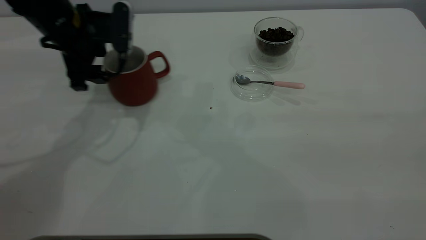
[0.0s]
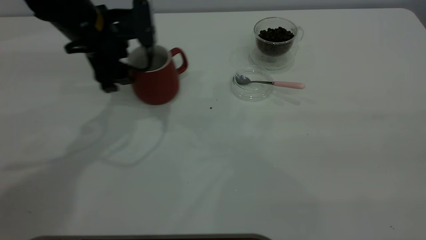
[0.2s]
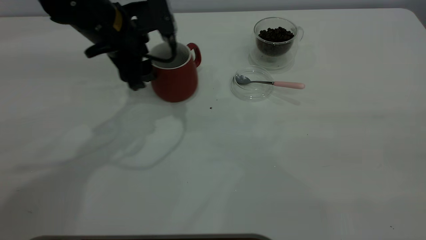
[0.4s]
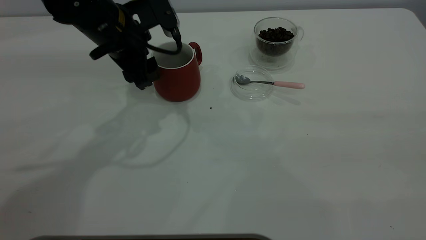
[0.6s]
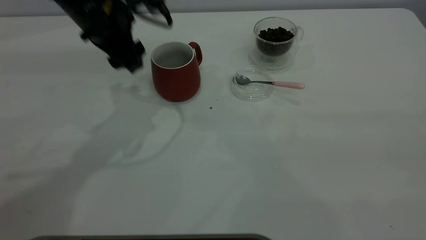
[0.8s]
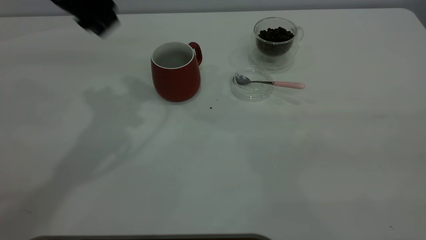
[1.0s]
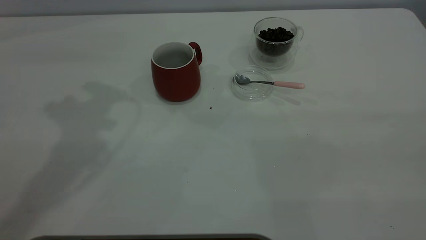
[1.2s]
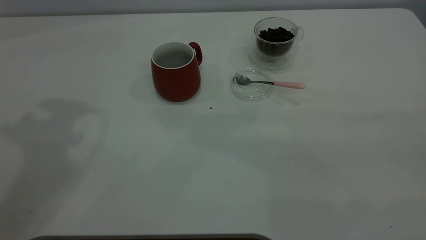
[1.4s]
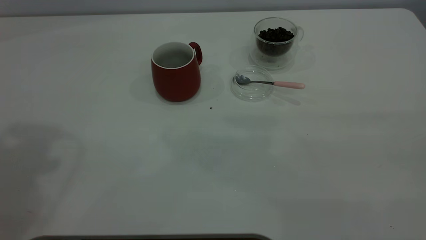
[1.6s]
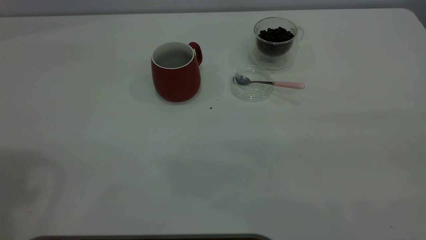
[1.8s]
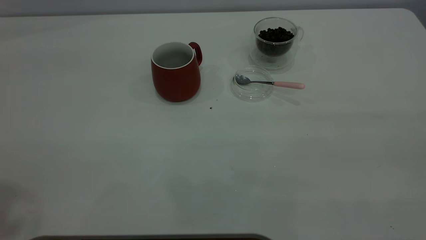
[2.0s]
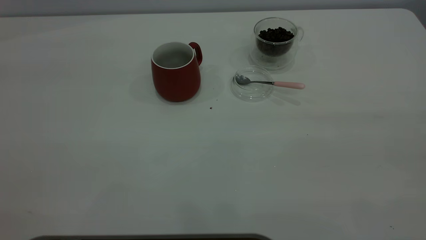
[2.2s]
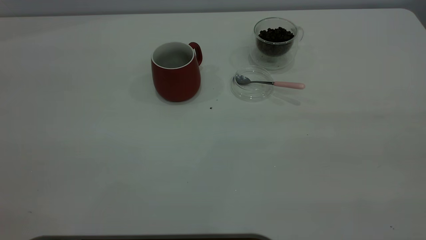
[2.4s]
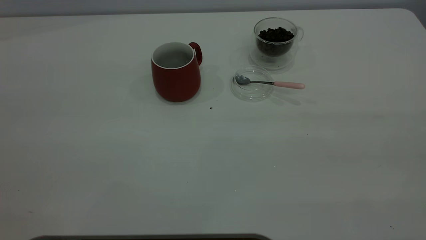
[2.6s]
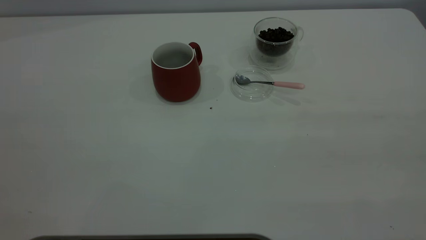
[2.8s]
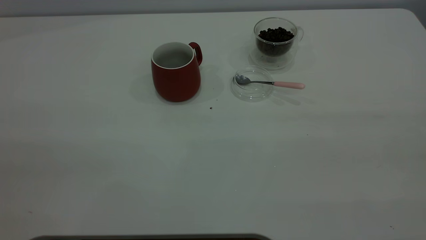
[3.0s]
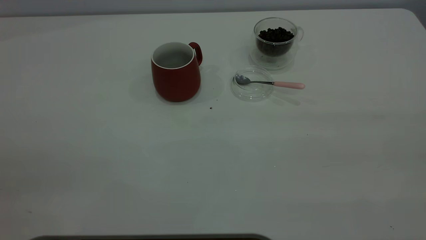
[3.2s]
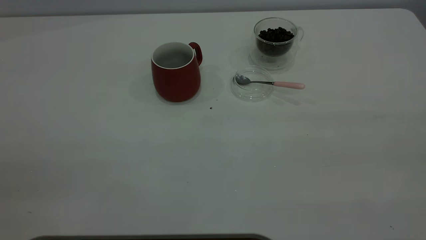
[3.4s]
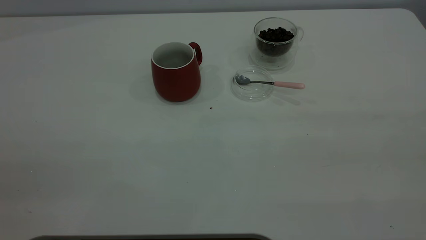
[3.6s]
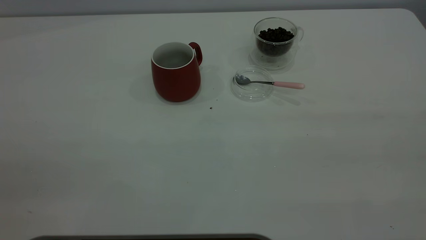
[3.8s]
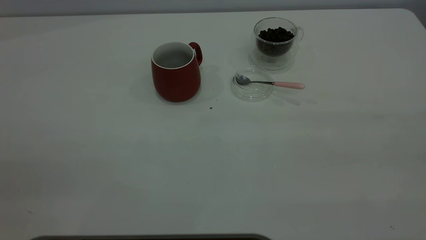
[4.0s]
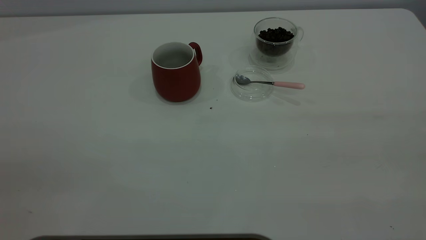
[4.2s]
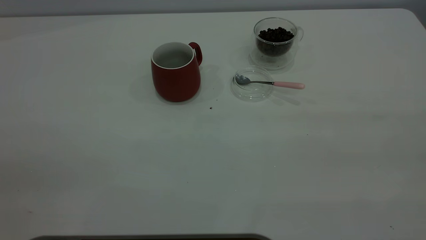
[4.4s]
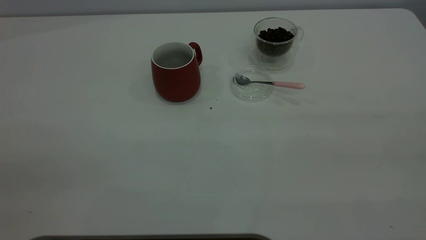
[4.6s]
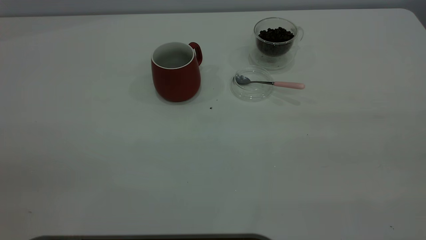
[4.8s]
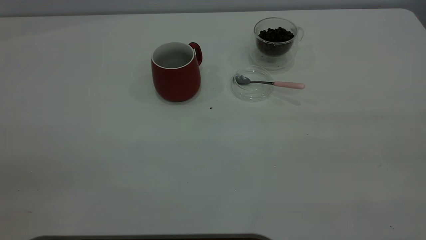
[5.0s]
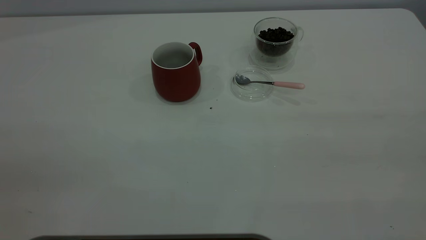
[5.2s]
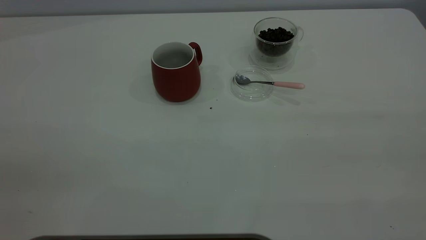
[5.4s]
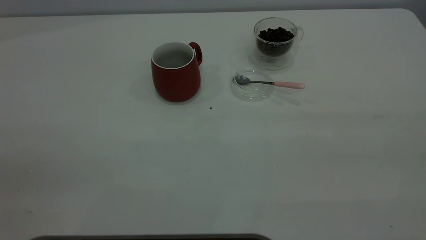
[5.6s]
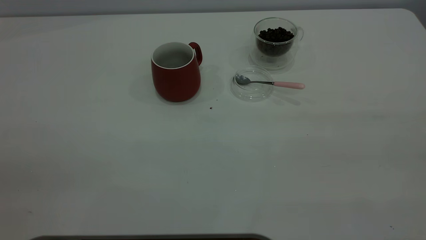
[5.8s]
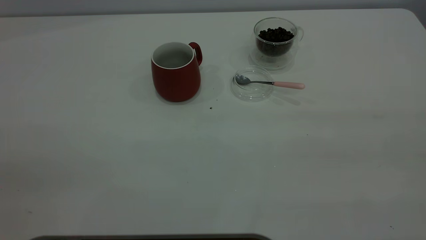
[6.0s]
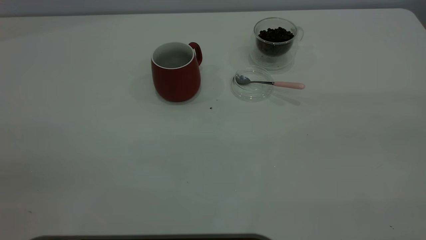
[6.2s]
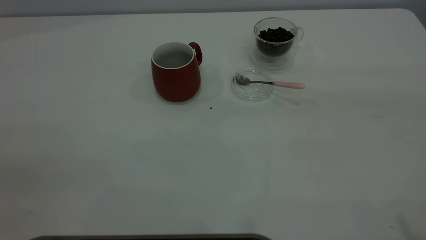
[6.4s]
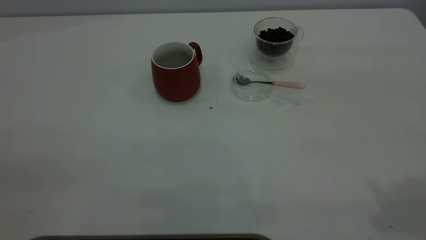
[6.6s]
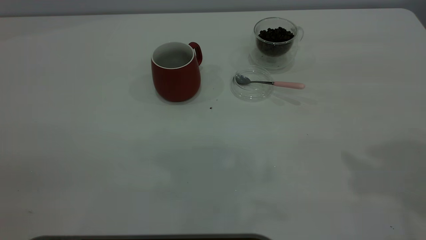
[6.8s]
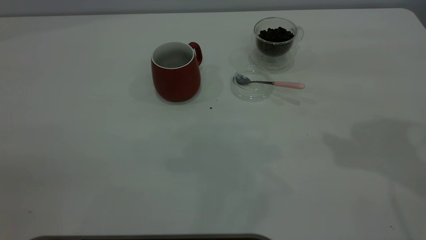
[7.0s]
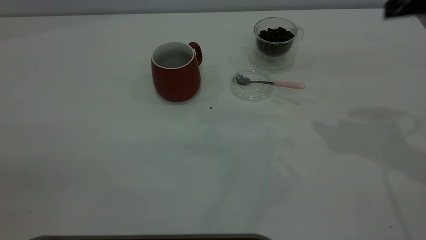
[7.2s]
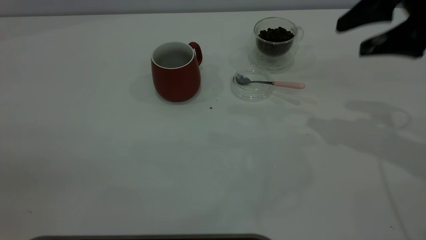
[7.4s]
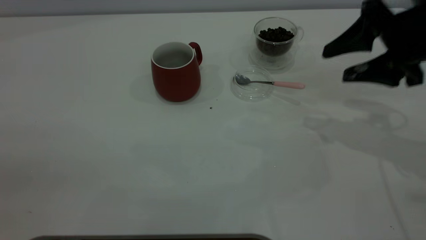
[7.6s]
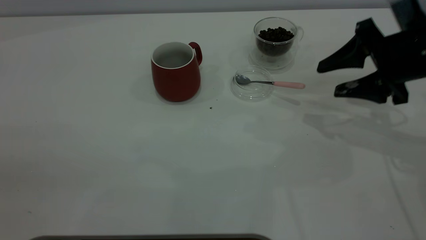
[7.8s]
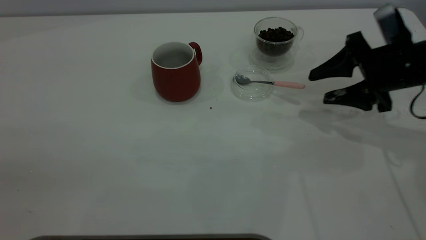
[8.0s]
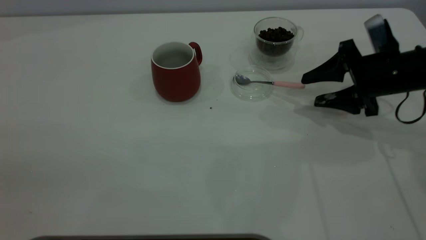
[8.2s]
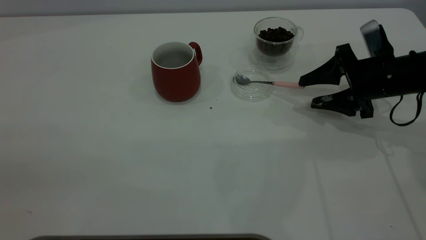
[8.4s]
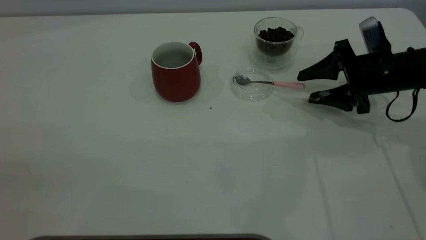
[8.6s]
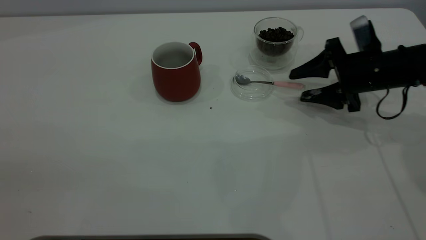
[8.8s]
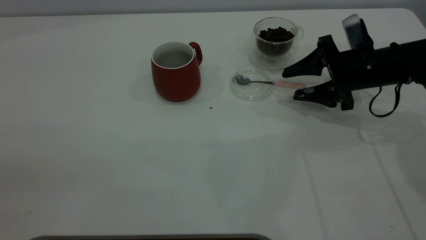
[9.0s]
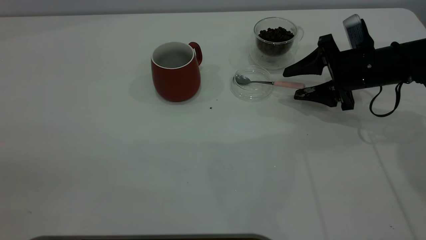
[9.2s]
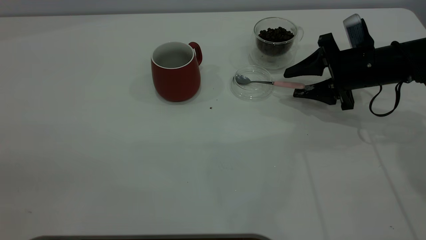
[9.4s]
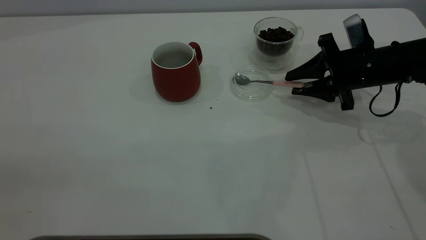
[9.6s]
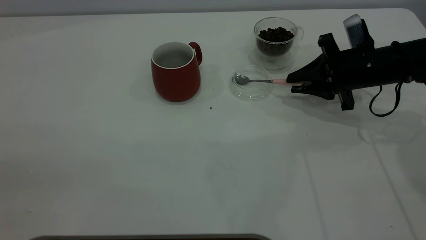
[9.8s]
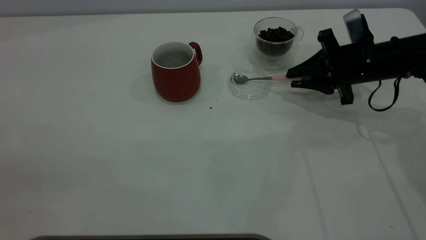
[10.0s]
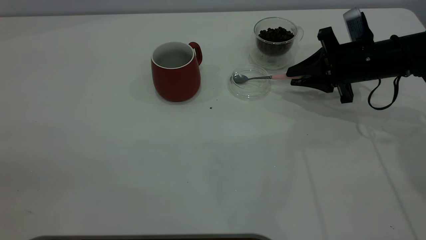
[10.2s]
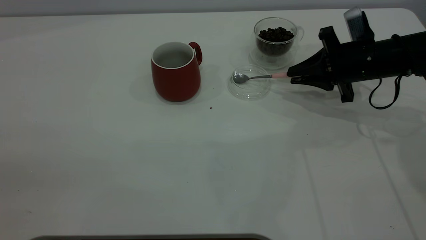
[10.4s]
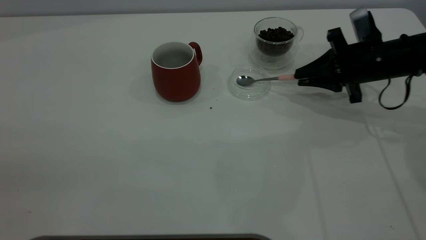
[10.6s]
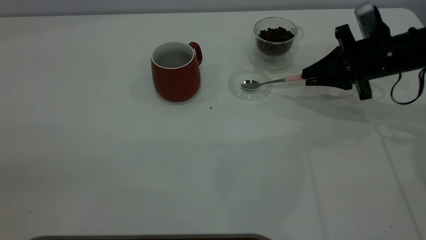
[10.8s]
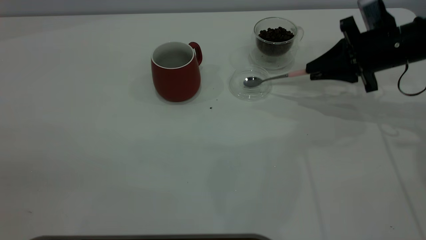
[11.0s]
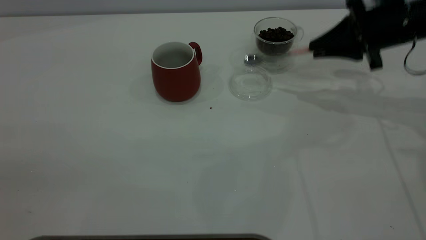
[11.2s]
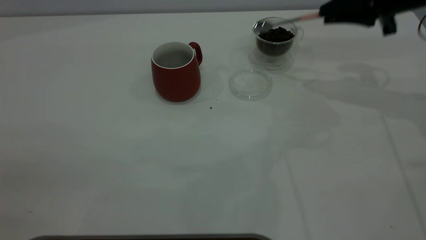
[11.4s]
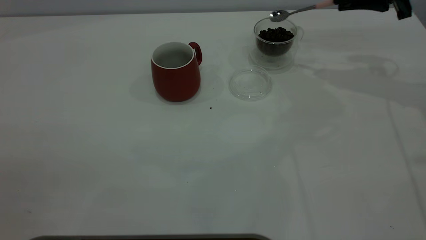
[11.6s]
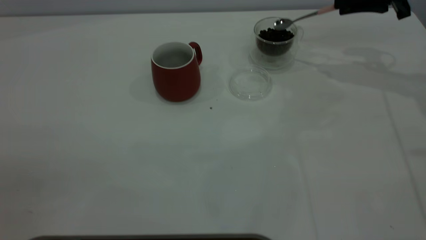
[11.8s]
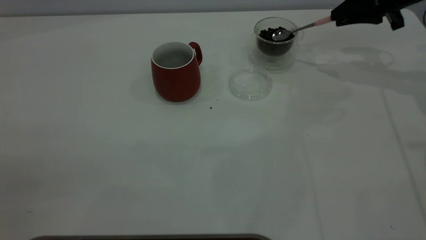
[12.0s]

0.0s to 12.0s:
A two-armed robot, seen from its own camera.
Task of the whole recording: the left gripper place the red cup in the center of the table, the right gripper take the pink spoon from the cup lid and scoop out the coffee beans from the coffee cup and put them into the red cup, the right gripper put the spoon back into the cup lid.
Step, 1.0s to 11.0s: Pick up the spoon.
0.0s to 1.6s: The left gripper shifts roughly 35 cm upward and backward.
4.4s to 6.0s: Neither gripper changes place.
6.0s to 7.6s: The right gripper shifts about 35 cm forward and downward, and opens up.
7.6s to 9.0s: The right gripper travels downward and forward by some 10 cm.
9.0s to 10.4s: The right gripper closes up.
10.4s to 12.0s: The right gripper moves upward, forward and to the right, some 15 cm.

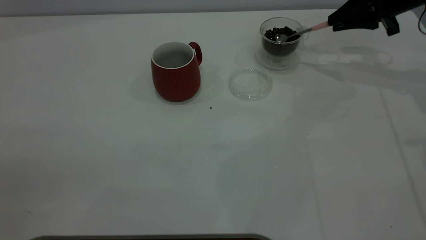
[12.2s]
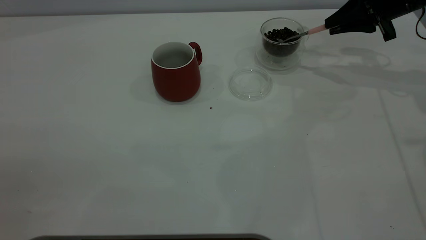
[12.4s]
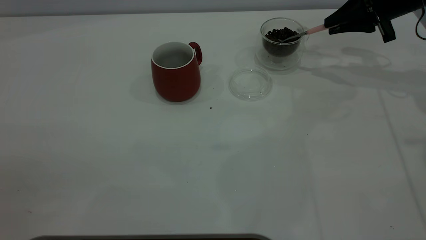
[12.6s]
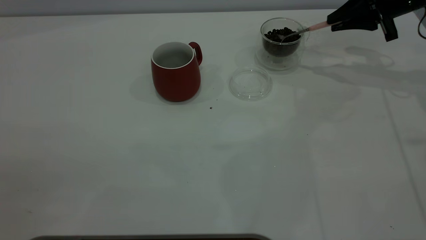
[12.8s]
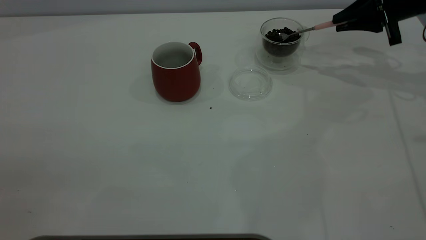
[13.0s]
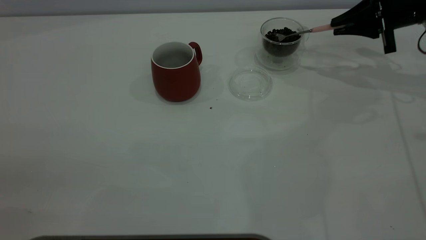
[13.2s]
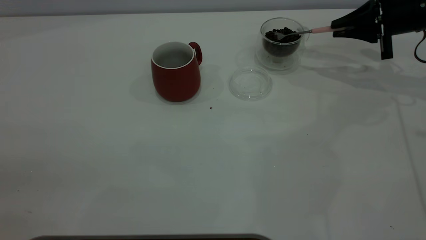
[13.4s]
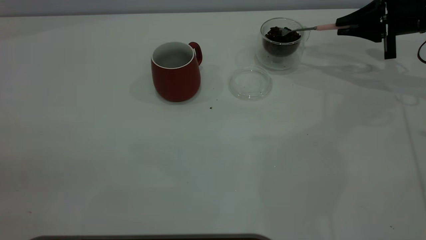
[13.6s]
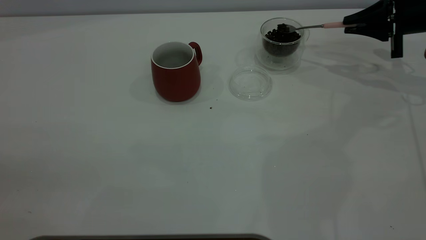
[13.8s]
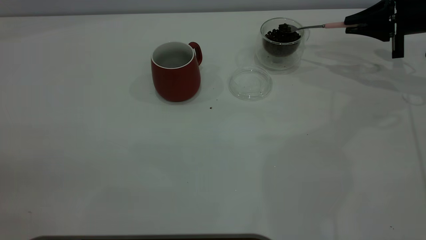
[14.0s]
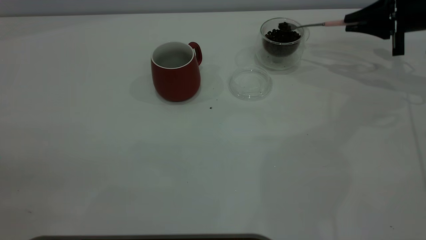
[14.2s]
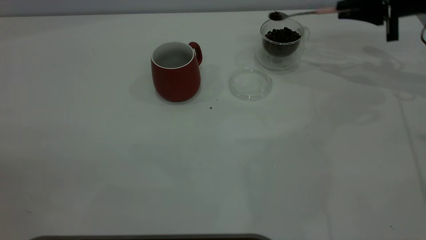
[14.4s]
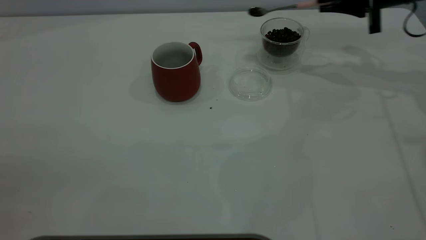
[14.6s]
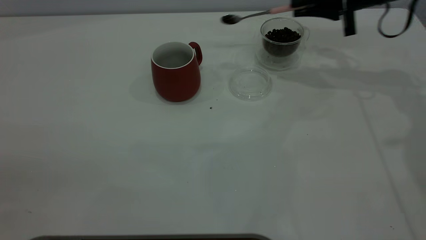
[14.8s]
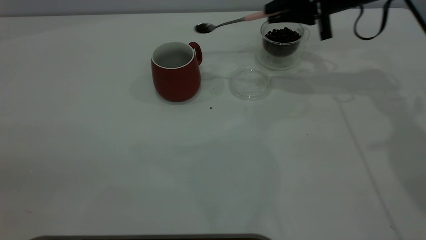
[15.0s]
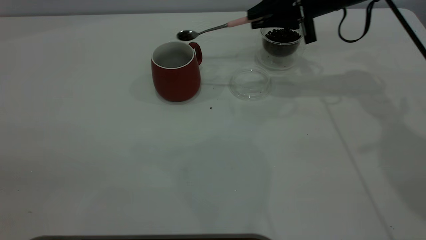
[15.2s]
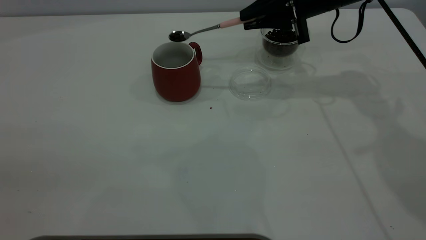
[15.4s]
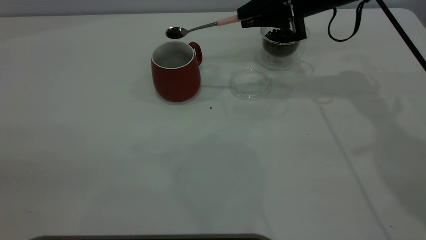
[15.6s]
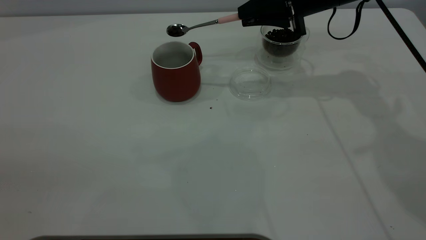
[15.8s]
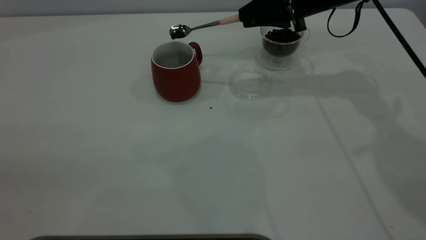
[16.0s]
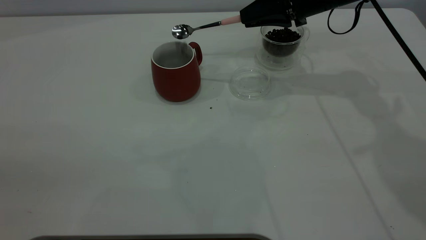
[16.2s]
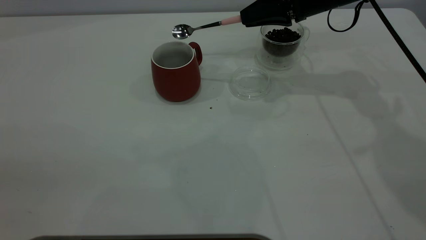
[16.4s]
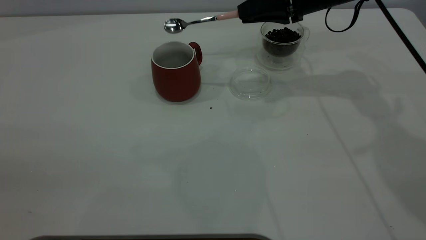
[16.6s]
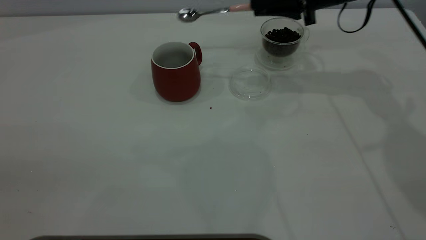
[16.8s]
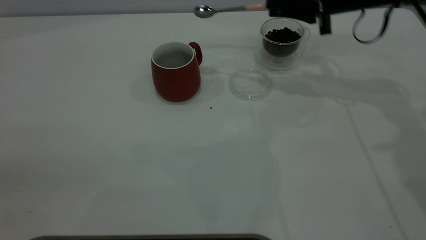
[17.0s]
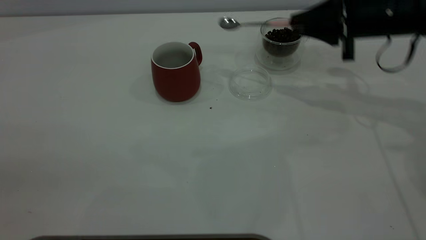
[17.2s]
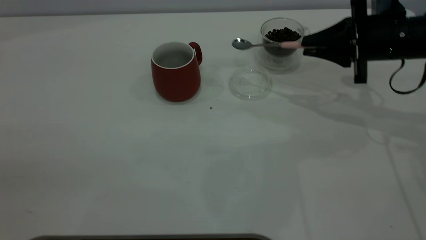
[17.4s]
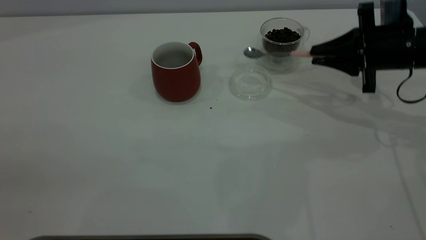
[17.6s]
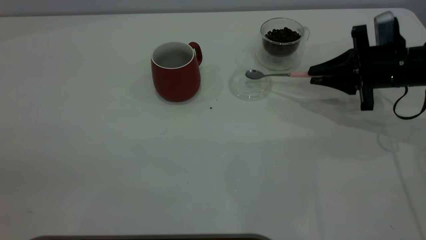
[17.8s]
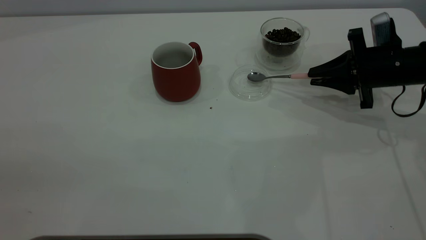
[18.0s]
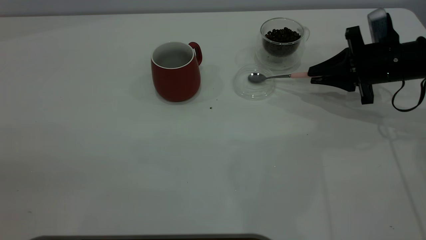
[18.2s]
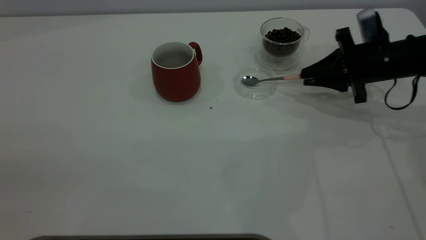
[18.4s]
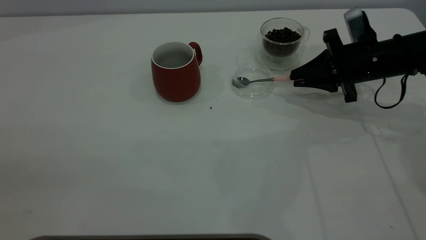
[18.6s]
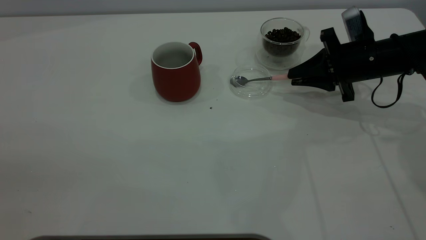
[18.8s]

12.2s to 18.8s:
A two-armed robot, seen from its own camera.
Task of the whole recording: the left gripper place the red cup in the center of the table, the right gripper take the pink spoon from the cup lid and scoop out the coffee beans from the coffee cup and put them into the red cup, the right gripper put the spoon back into the cup lid.
Step, 12.2s to 16.4s: Scoop a spoonful of beans into the cup.
12.2s to 13.8s: The right gripper shifts by about 5 cm.
13.8s to 15.4s: The right gripper travels to the left by some 20 cm.
15.4s to 17.2s: The right gripper is displaced to the right and backward by some 10 cm.
17.2s to 18.8s: The right gripper heads downward, covering about 5 cm.
